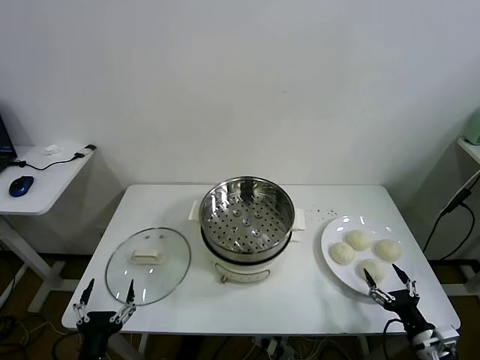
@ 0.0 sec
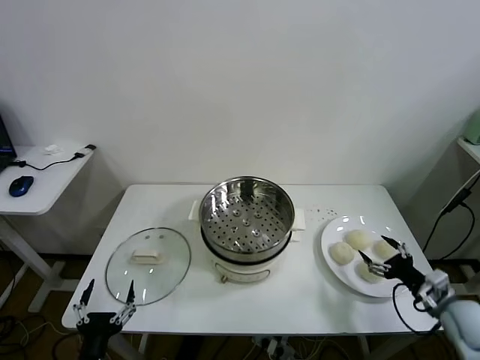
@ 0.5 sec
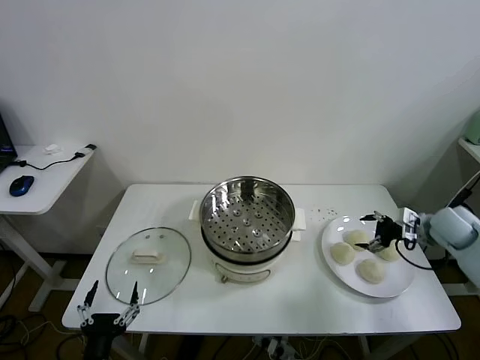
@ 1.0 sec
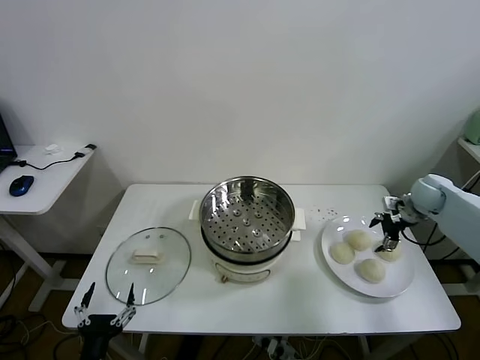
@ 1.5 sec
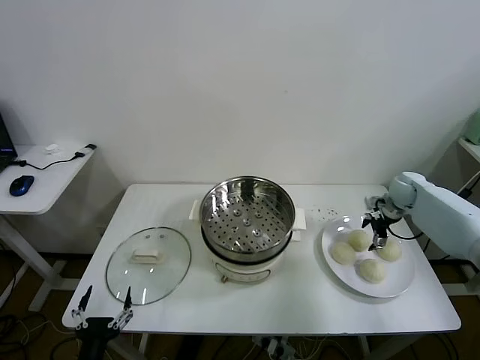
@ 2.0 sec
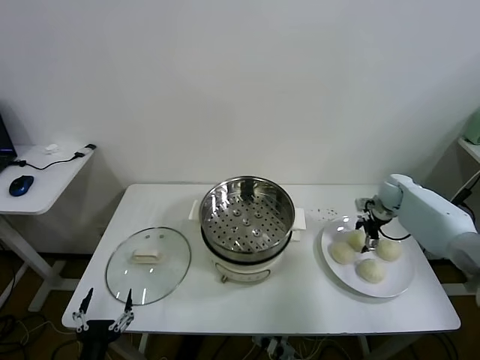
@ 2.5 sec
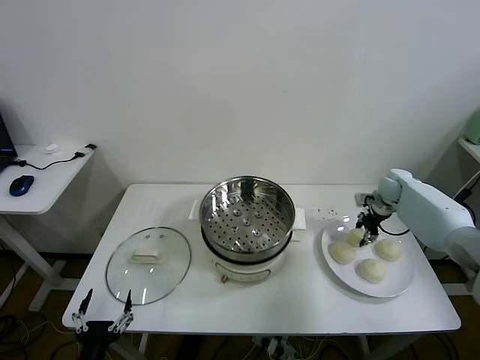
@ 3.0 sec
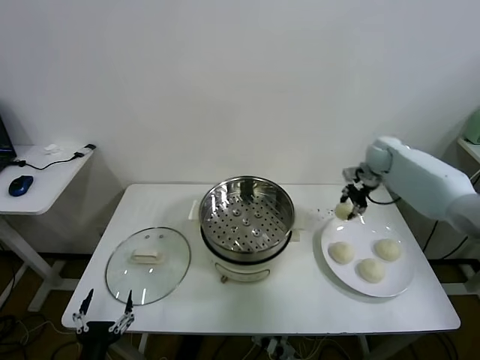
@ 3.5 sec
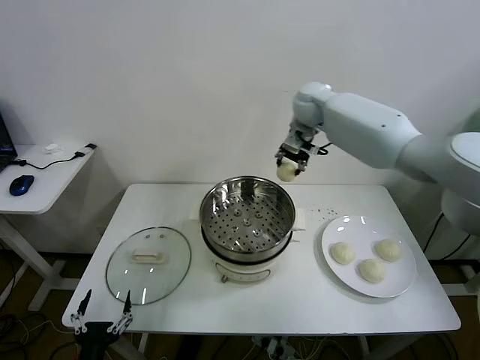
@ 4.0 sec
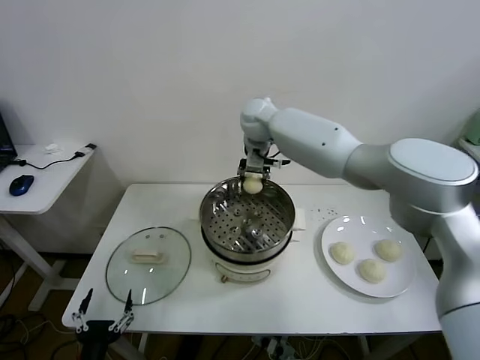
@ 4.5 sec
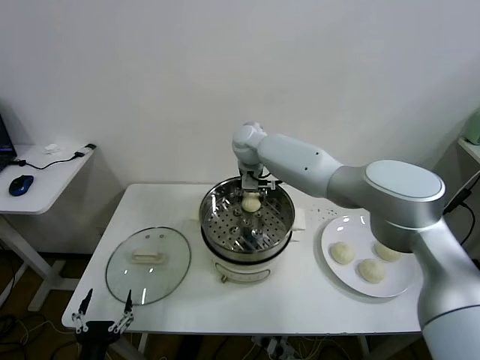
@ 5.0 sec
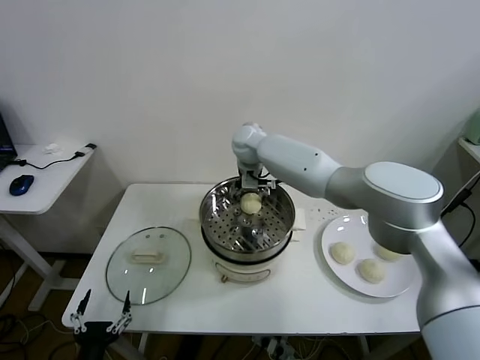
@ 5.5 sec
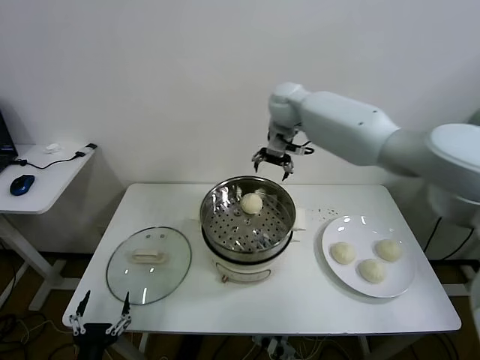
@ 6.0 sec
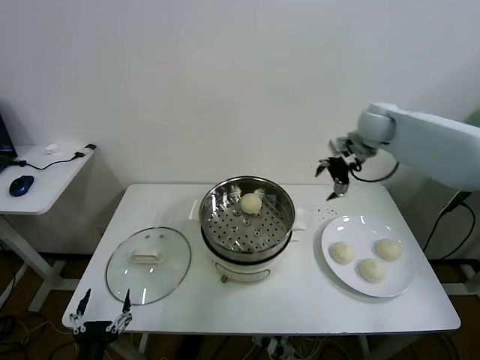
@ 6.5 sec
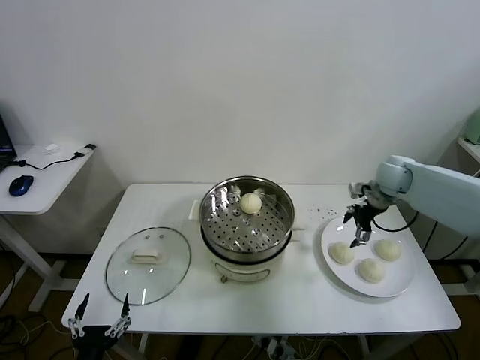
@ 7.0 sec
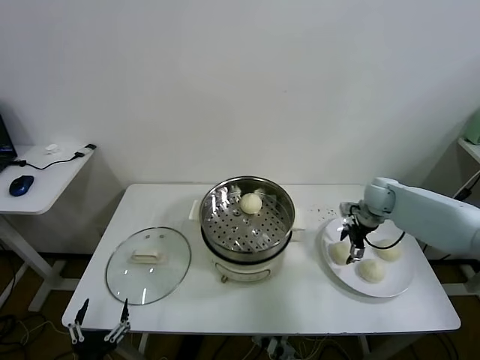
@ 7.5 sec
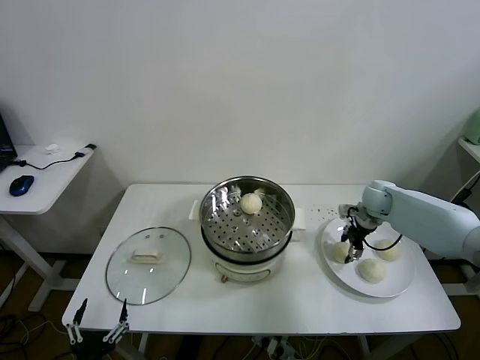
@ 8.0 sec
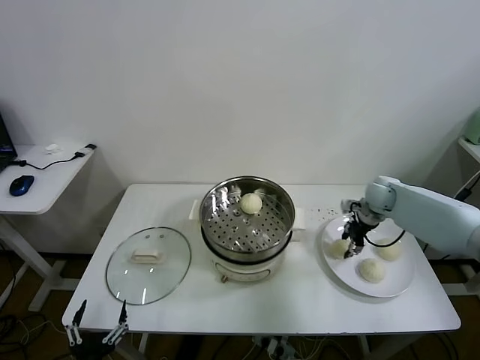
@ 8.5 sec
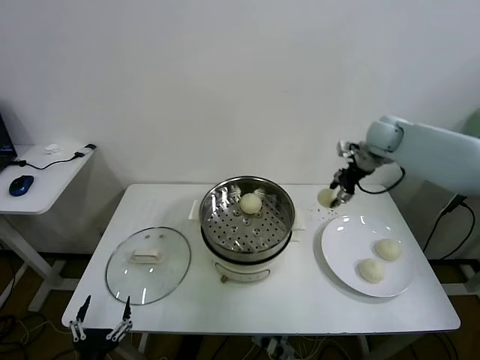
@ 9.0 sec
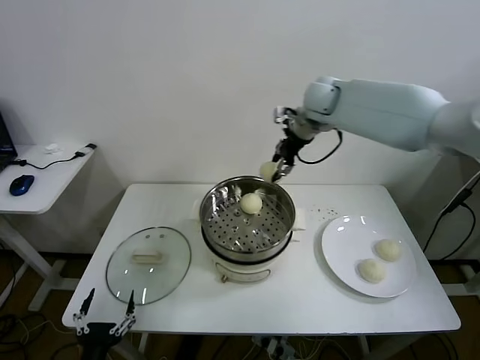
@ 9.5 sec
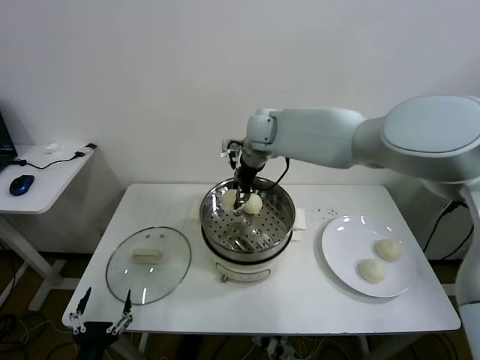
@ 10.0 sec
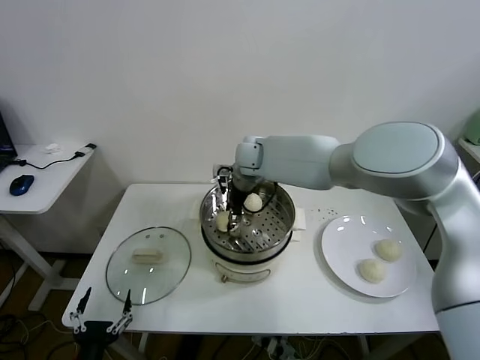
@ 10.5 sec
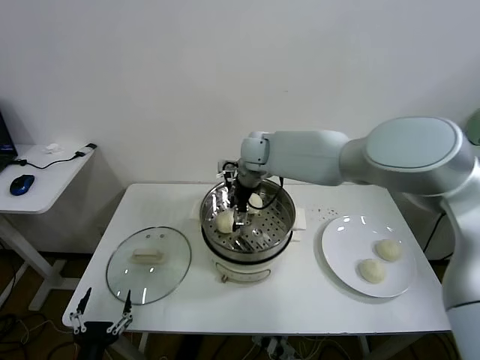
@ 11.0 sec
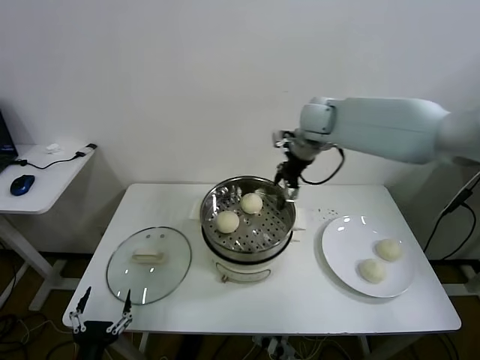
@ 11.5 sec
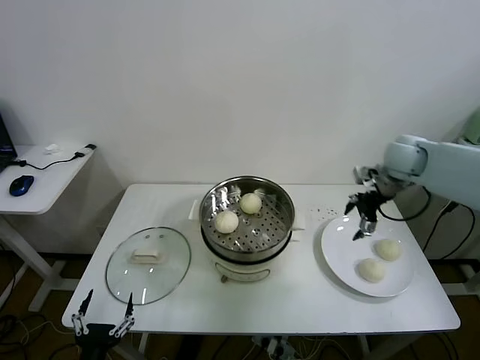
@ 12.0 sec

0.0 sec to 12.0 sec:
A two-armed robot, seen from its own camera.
Task of the whole recording: take steamed baozi put them in steamer.
Step, 0.0 sec to 2.5 sec: Grasp the baozi in the plate with right gripper.
Step, 3.0 sec to 5.5 sec: Place the baozi on the steamer with right gripper.
Step, 6.0 sec to 8.0 sec: Grasp the baozi in the plate with right gripper.
Step, 8.5 sec to 11.0 sec: Place the baozi on the steamer with right gripper.
2.0 sec to 4.0 sec: The right gripper shifts some 40 cm to the left and upward, and closes.
4.0 sec to 6.0 sec: The right gripper goes to the left and returns, roughly 10 cm each way, and opens.
6.0 sec to 8.0 sec: The right gripper is displaced downward and to the right by about 35 cm, and closes up.
8.0 sec to 10.0 sec: The right gripper goes approximately 35 cm to the left and upward.
10.0 sec to 12.0 sec: The right gripper travels to the right by about 35 cm, and opens up.

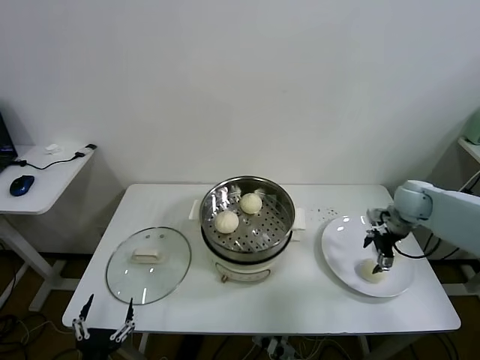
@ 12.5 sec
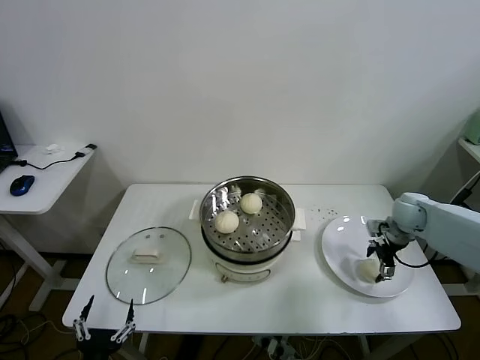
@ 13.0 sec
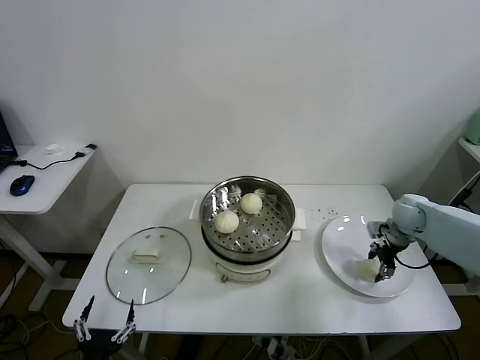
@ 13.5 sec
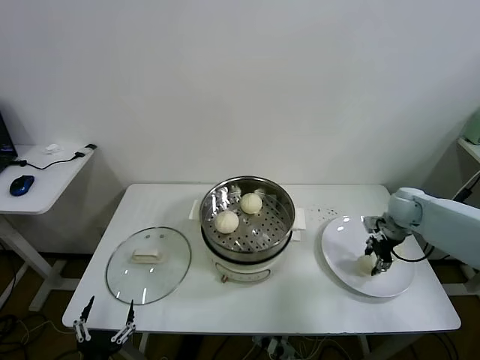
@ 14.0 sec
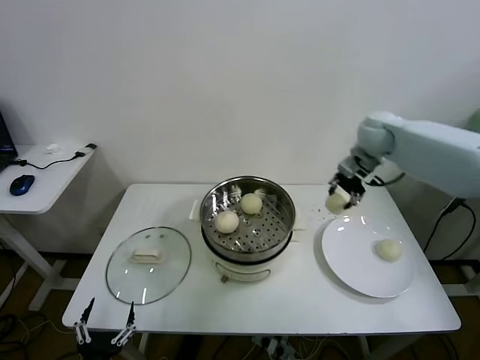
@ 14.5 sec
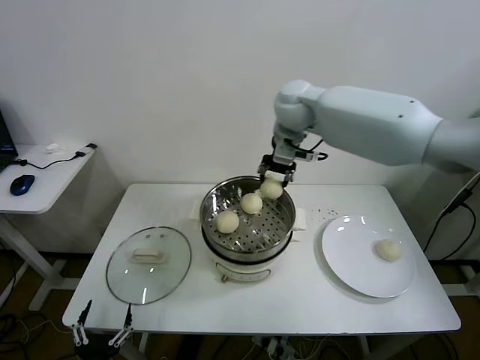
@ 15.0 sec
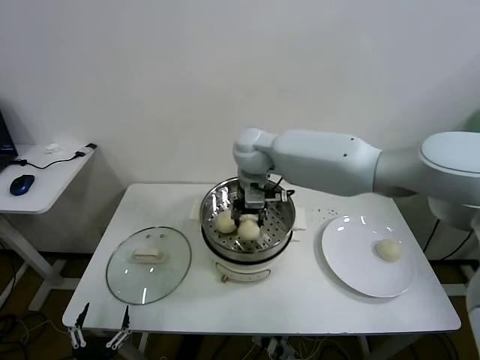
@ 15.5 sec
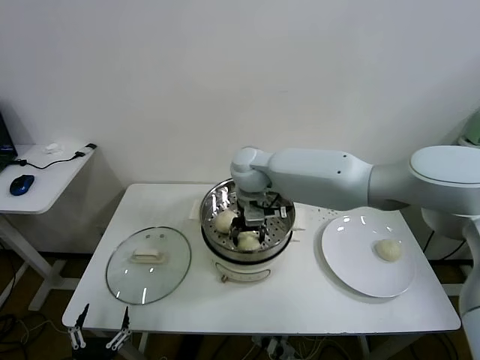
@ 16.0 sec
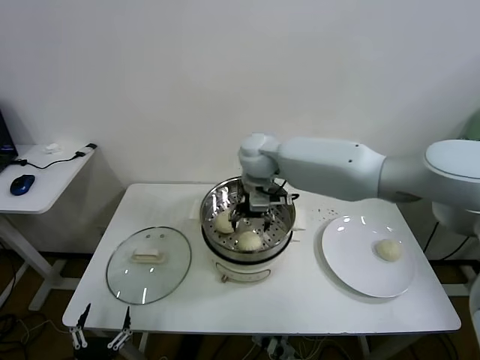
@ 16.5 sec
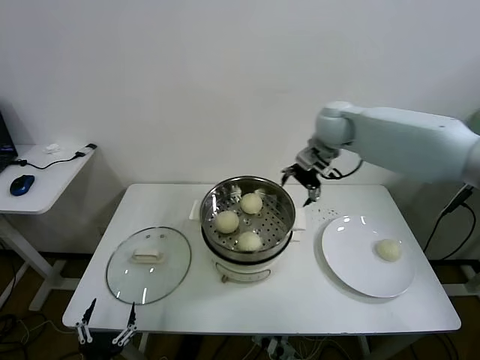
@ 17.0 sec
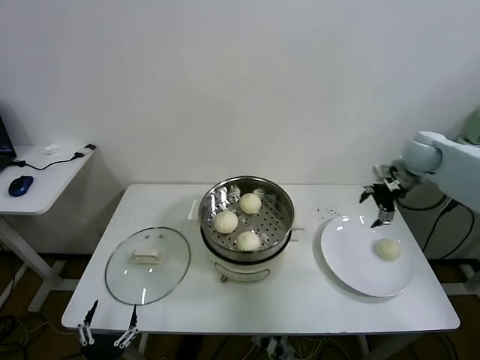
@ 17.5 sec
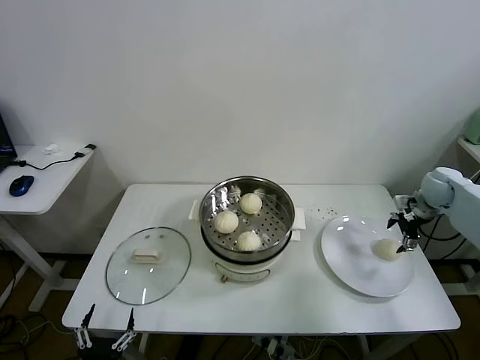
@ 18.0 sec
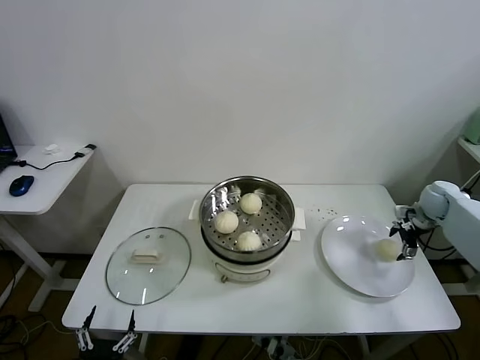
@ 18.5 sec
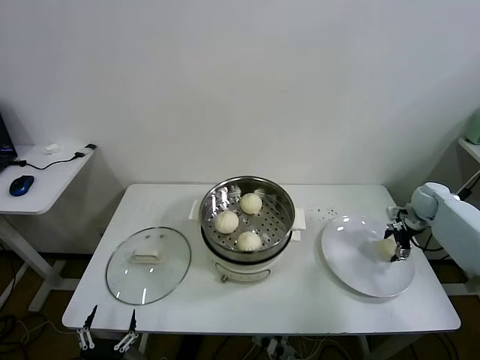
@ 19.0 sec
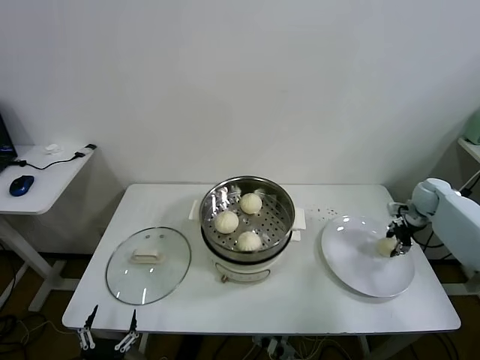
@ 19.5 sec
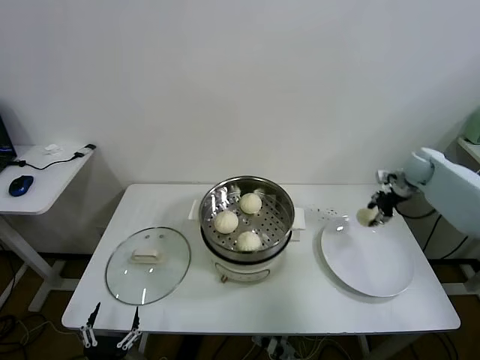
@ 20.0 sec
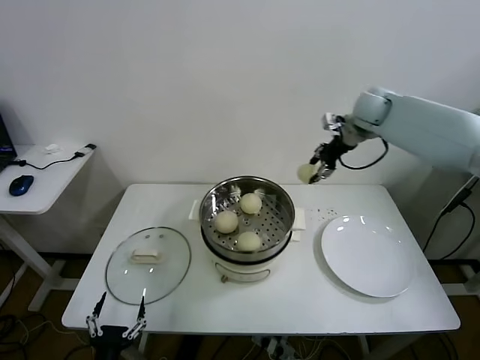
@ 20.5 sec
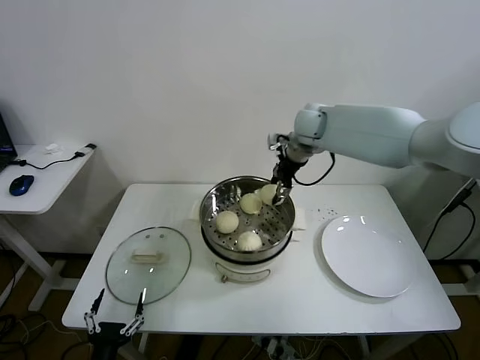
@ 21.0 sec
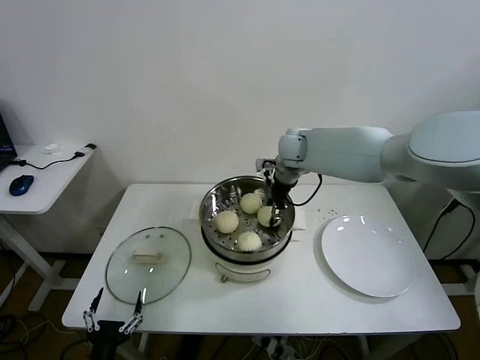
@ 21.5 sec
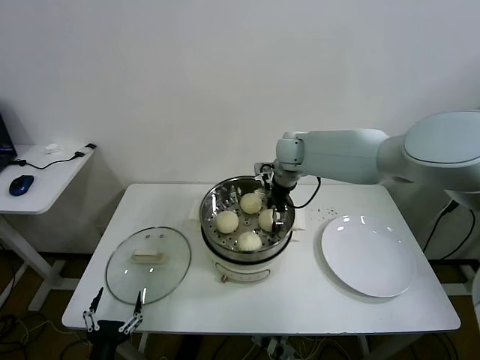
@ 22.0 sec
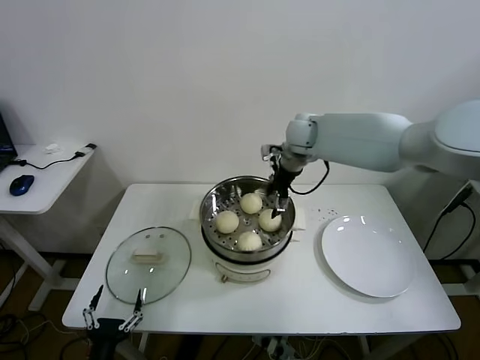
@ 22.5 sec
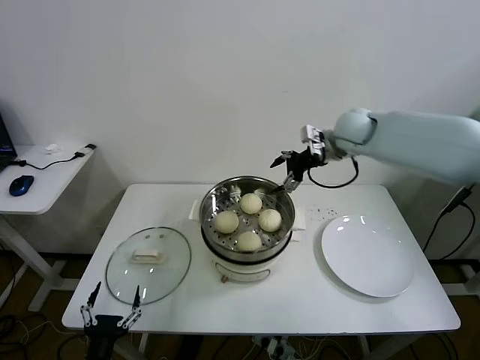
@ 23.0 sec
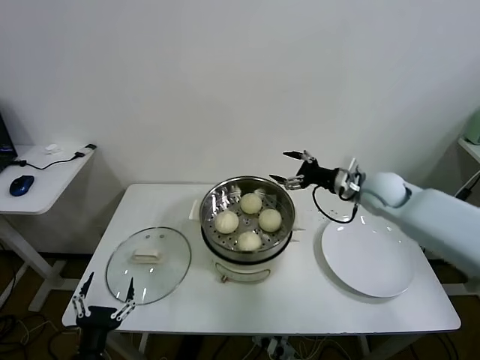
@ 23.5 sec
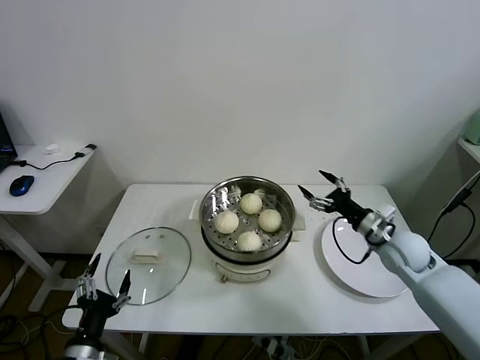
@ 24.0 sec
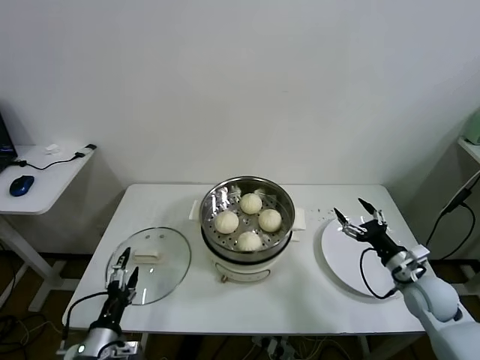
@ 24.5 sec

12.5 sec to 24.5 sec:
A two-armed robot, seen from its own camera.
Task of the whole recording: take steamed baozi put them in steamer.
Step, 14.0 sec to 16.0 sec: Place the baozi on the steamer with right gripper.
Step, 16.5 sec to 19.0 sec: Grasp the baozi in the plate with right gripper.
Step, 19.5 sec to 22.0 sec: Place the baozi on the steamer with right gripper.
12.5 sec to 14.5 sec: The right gripper is displaced upward, to the left and forward by about 25 cm, and closes up.
14.5 sec to 16.5 sec: The right gripper is displaced to the left by some 25 cm, and opens its fingers.
16.5 sec to 18.5 sec: The right gripper shifts roughly 50 cm to the right.
18.5 sec to 20.5 sec: The right gripper shifts approximately 35 cm to the left, upward and forward, and closes its fingers.
20.5 sec to 22.5 sec: The right gripper travels to the left by about 15 cm, and opens its fingers.
22.5 sec to 24.5 sec: The right gripper is displaced backward, to the right and downward by approximately 50 cm. Meanwhile the left gripper shifts roughly 5 cm forward.

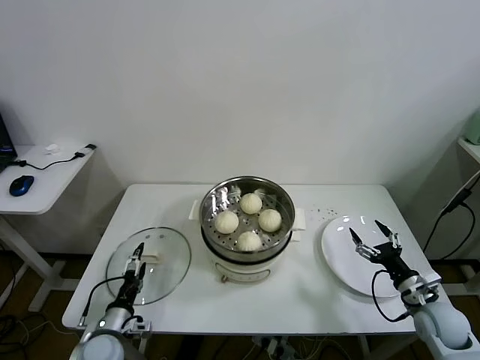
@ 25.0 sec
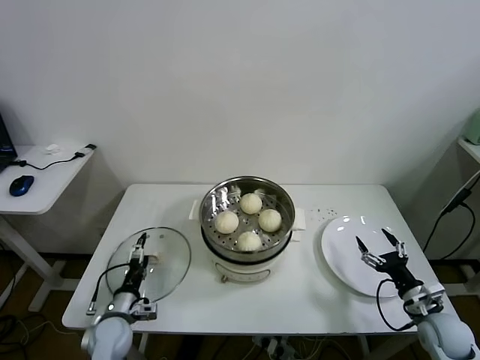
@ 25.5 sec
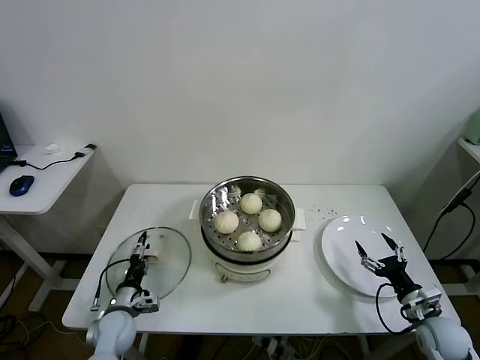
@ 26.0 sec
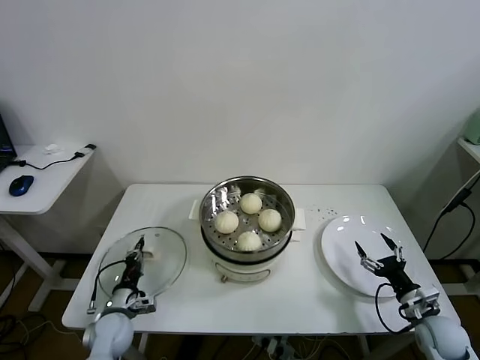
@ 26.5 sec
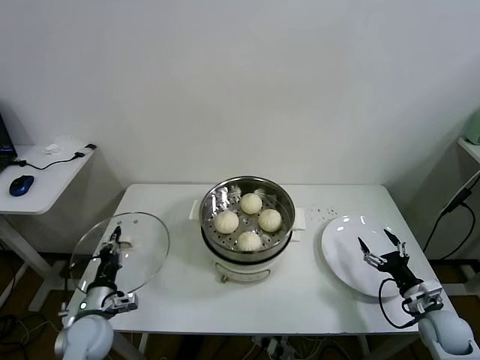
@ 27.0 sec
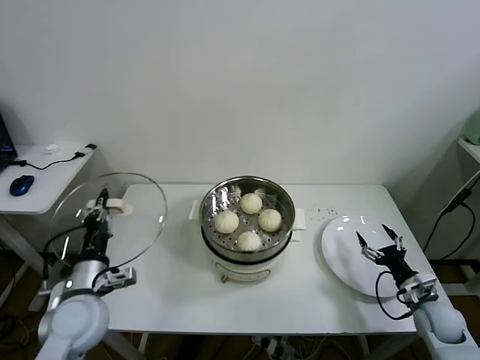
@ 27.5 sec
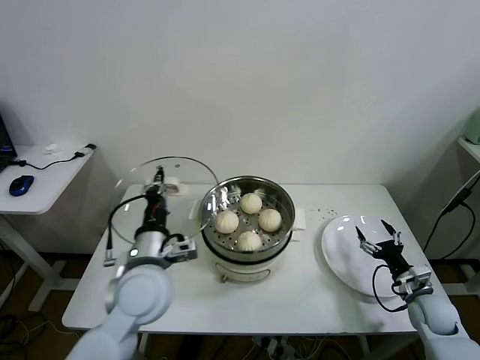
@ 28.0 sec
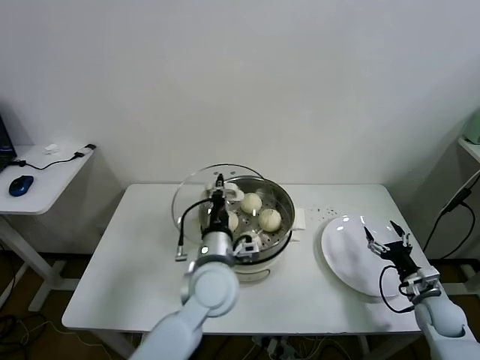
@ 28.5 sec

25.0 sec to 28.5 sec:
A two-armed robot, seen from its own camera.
Task of the whole recording: take steamed baozi put them in steamer.
25.0 sec to 27.0 sec: The left gripper changes place by approximately 5 cm, and closes up.
27.0 sec to 28.5 sec: The left gripper heads to the right and upward, covering about 30 cm.
